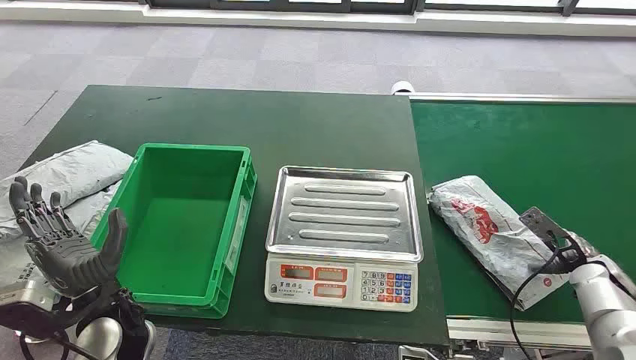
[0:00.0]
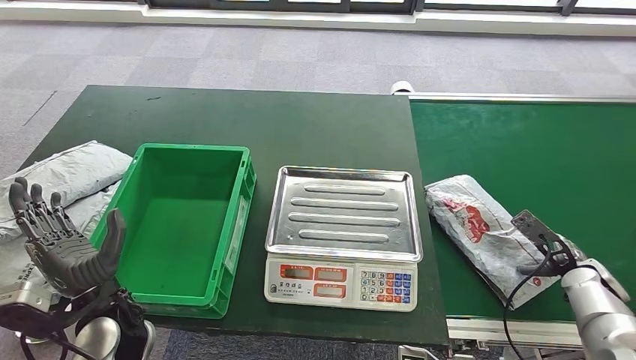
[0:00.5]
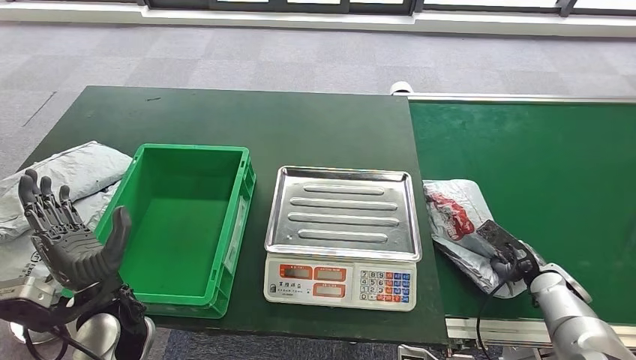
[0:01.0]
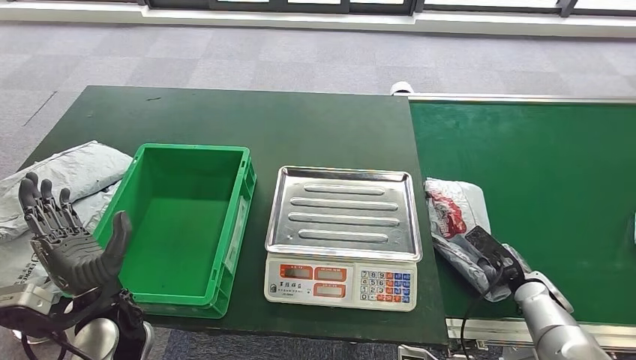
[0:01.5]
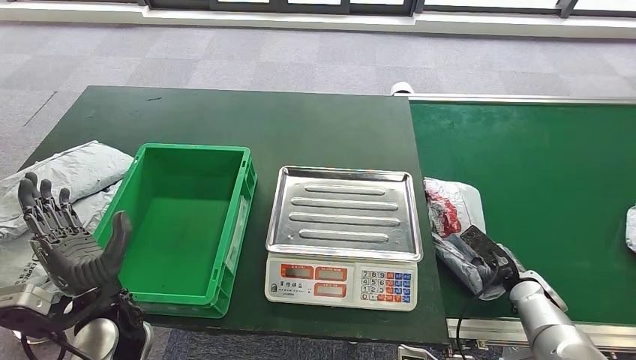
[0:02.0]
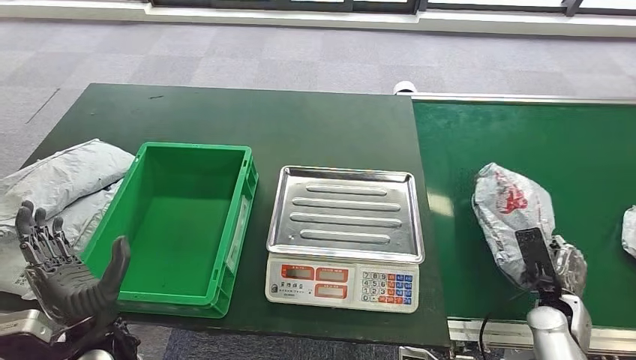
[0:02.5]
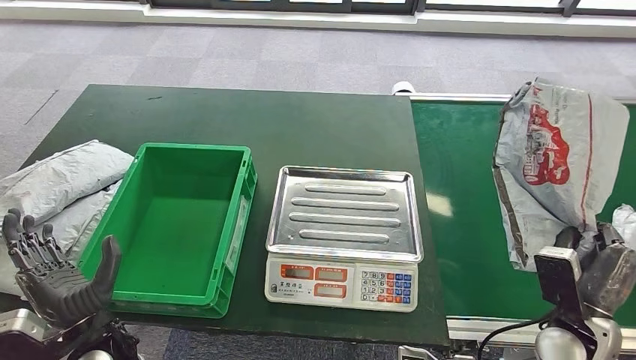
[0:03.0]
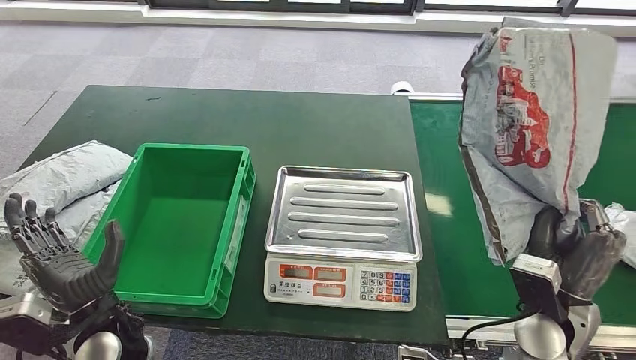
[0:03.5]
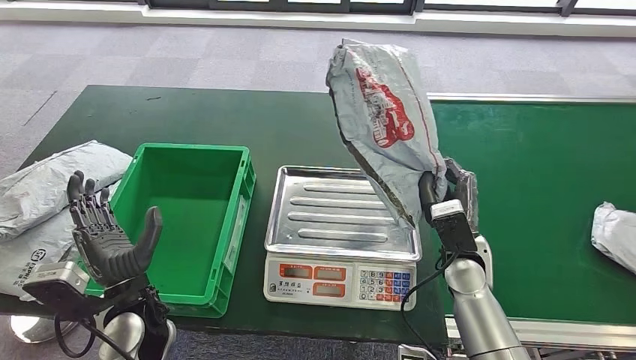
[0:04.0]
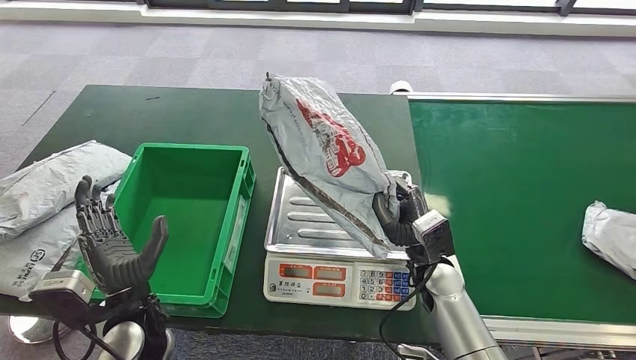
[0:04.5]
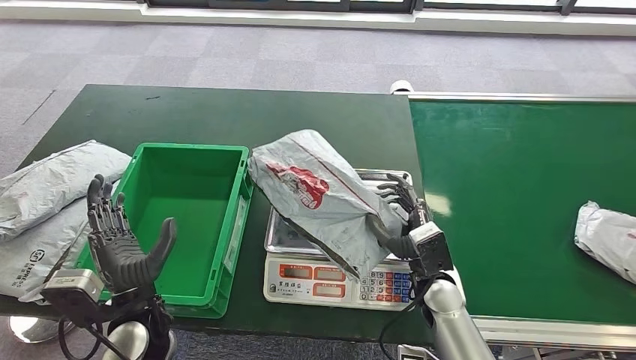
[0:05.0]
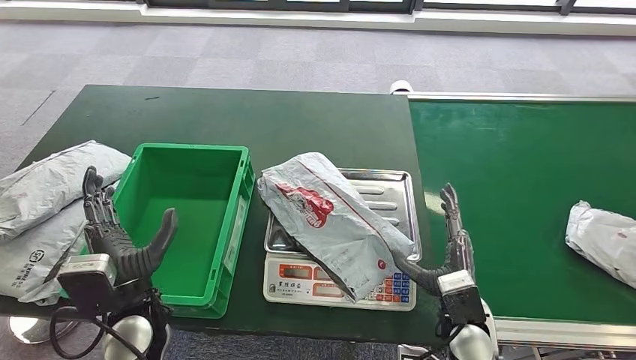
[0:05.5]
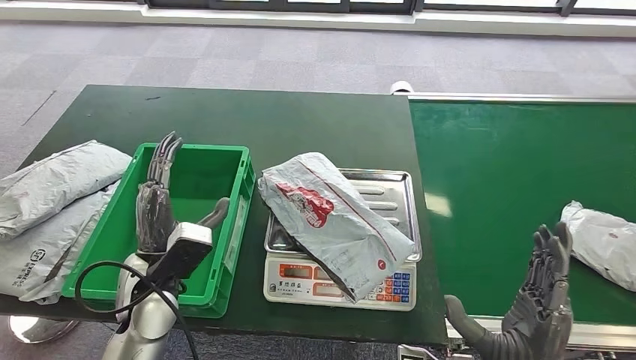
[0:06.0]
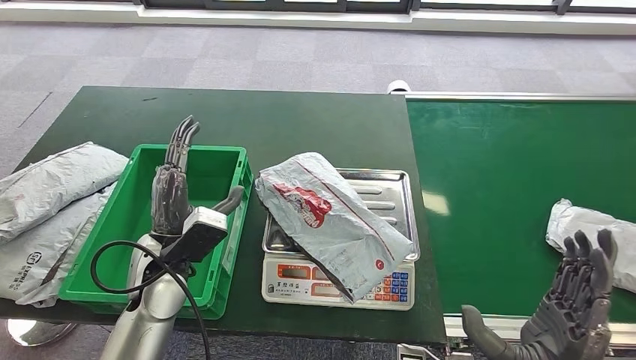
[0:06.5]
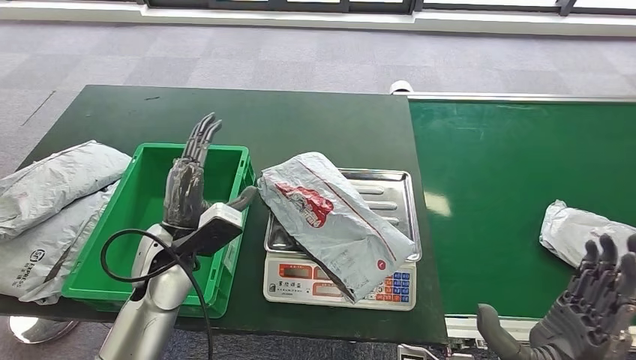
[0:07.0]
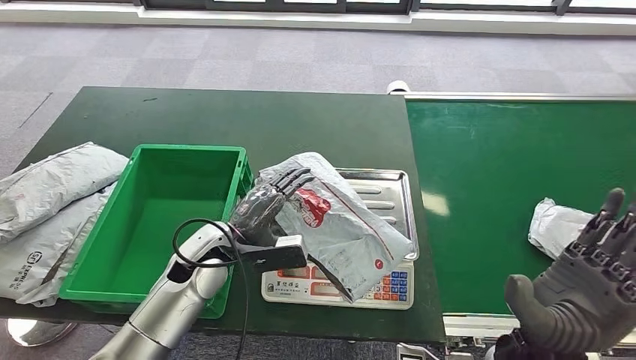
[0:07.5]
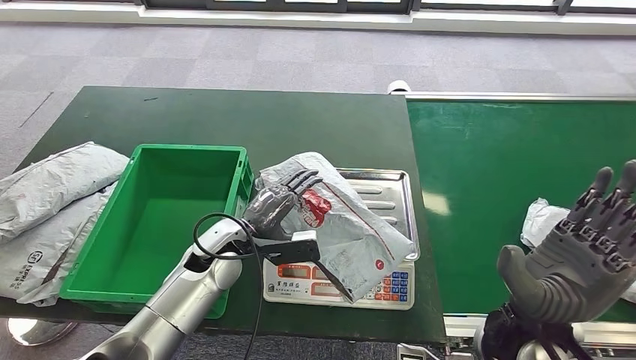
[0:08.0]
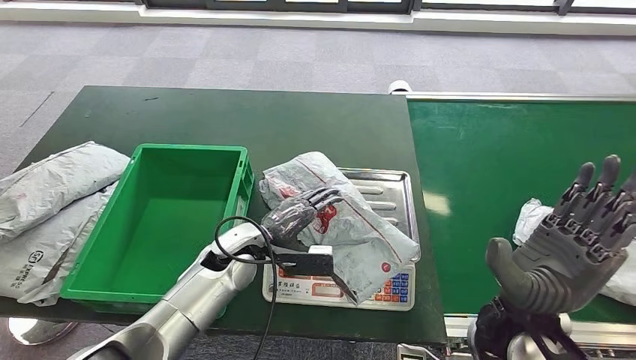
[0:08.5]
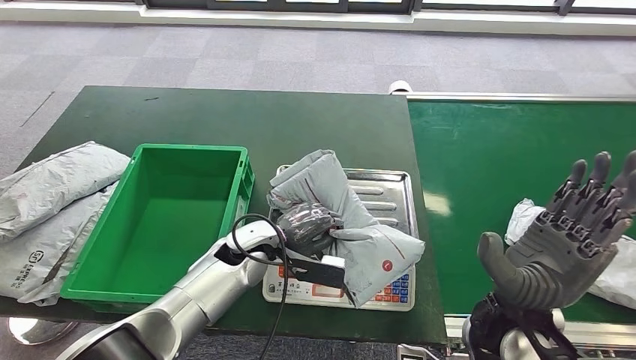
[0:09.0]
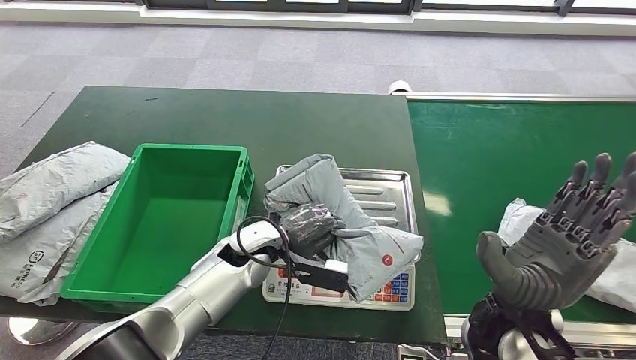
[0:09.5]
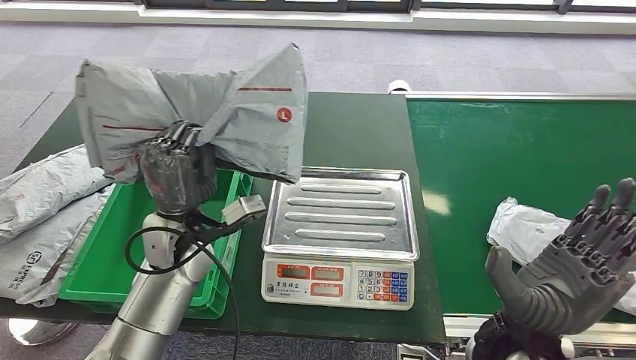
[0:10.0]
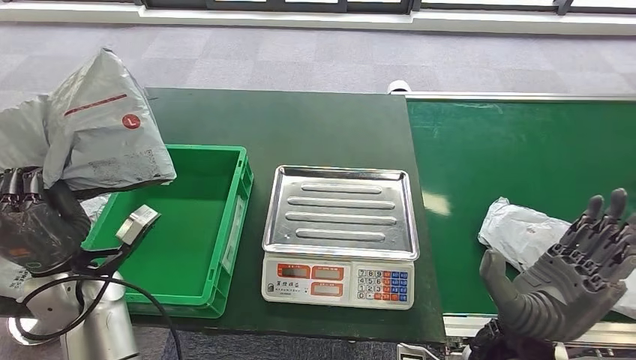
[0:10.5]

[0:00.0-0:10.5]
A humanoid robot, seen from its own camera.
Step, 0:00.0 to 0:03.0: Take the parcel off the conveyor belt.
Step, 0:04.5 to 0:06.0: Place the parcel onto the inbound machine.
0:06.5 to 0:08.5: The right hand shifts about 10 cm forward. Meanwhile the left hand is displaced downward, to the right and forward by about 10 cm.

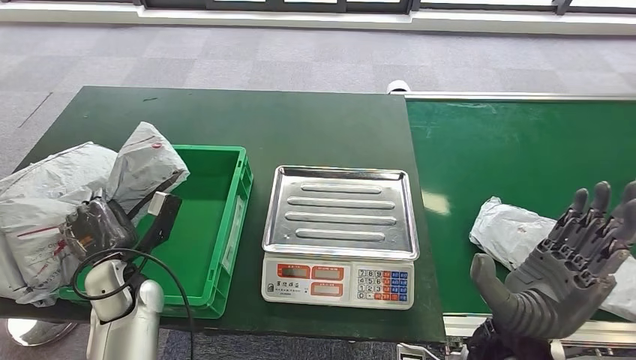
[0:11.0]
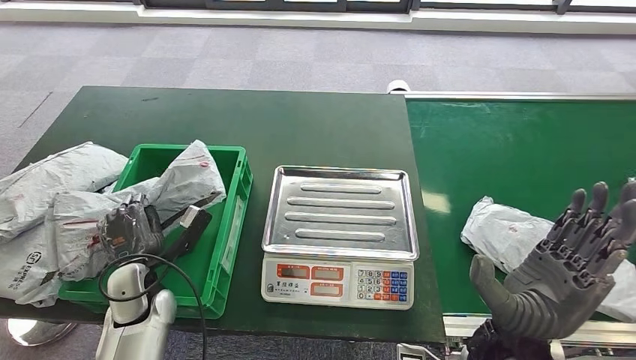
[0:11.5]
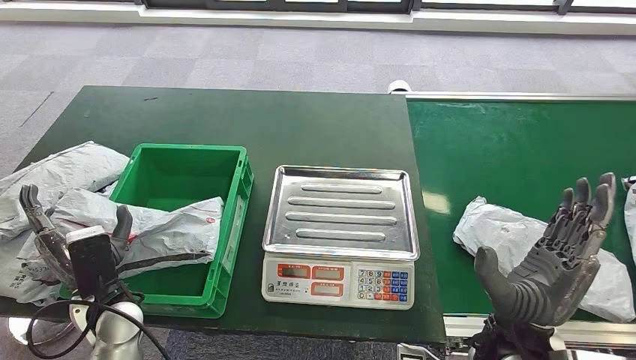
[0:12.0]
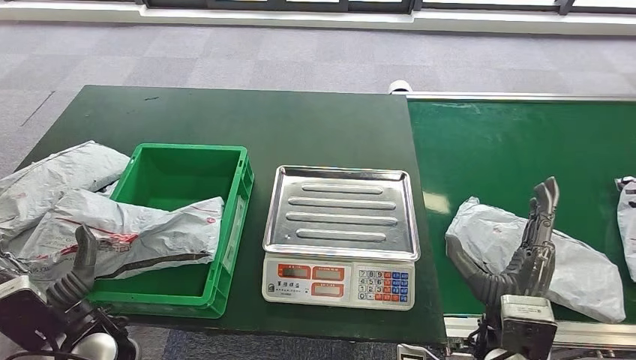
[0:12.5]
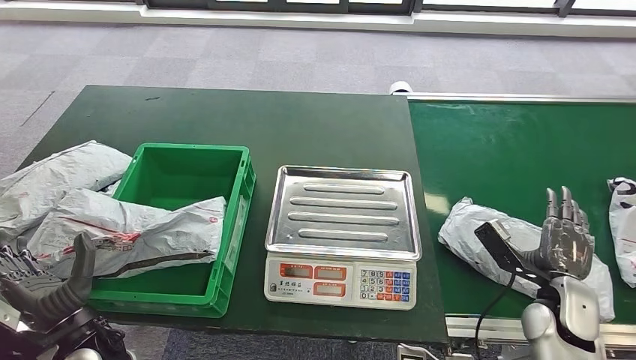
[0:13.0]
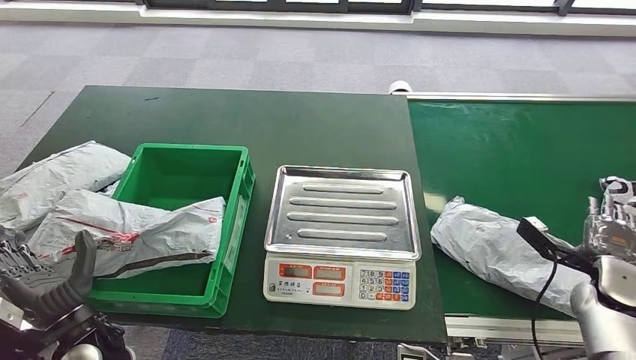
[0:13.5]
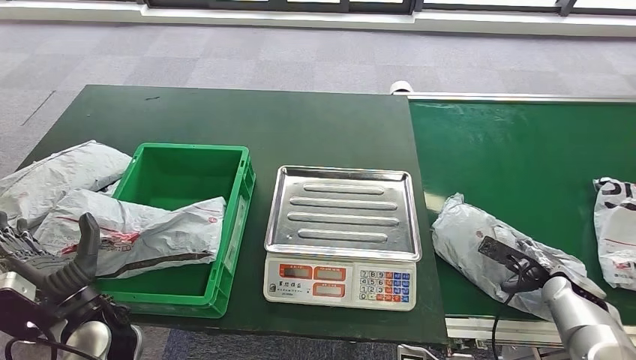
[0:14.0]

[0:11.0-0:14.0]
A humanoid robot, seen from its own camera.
Step, 0:11.5 to 0:14.0: Put the parcel inside the courier box.
0:12.5 to 0:14.0: The right hand is displaced to the right, forward and downward by approximately 30 cm.
